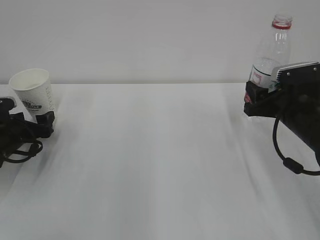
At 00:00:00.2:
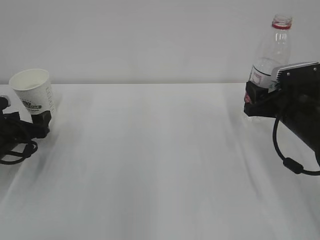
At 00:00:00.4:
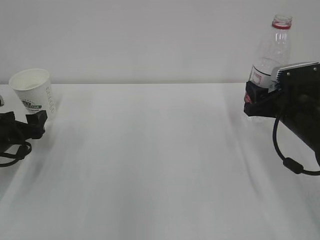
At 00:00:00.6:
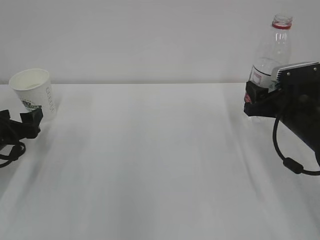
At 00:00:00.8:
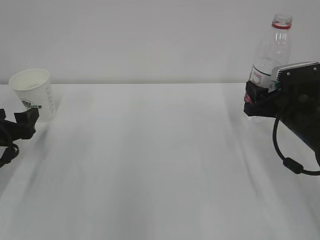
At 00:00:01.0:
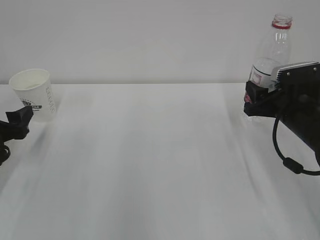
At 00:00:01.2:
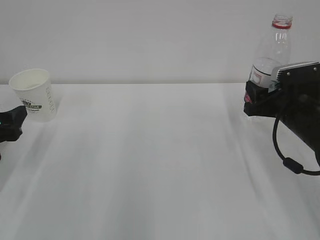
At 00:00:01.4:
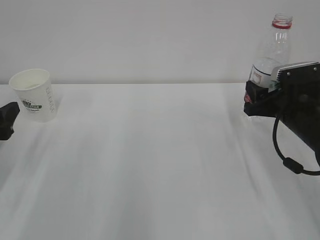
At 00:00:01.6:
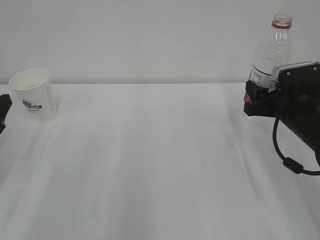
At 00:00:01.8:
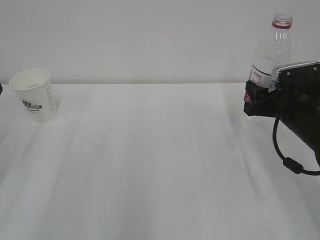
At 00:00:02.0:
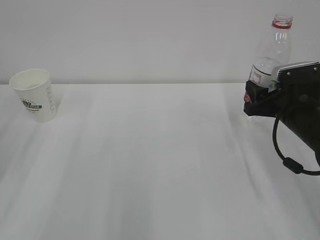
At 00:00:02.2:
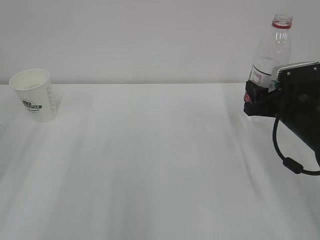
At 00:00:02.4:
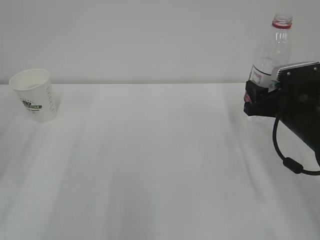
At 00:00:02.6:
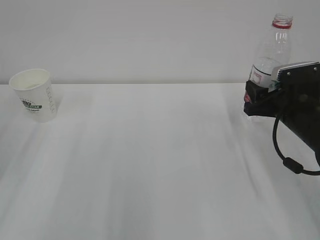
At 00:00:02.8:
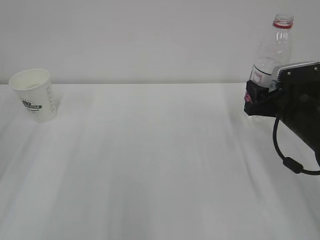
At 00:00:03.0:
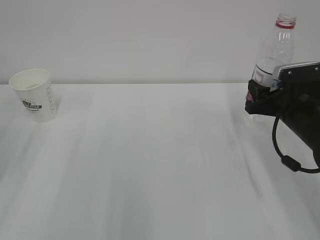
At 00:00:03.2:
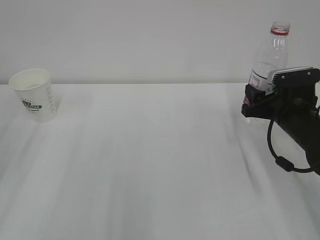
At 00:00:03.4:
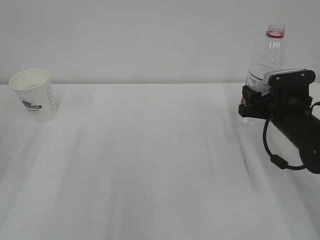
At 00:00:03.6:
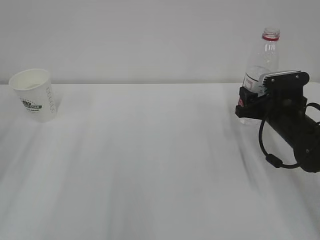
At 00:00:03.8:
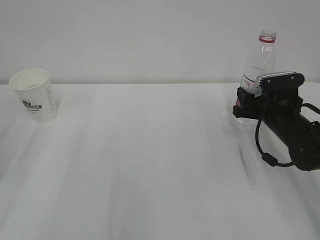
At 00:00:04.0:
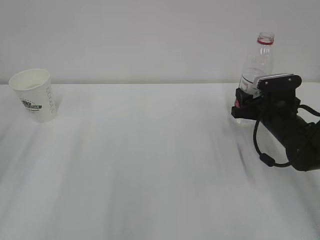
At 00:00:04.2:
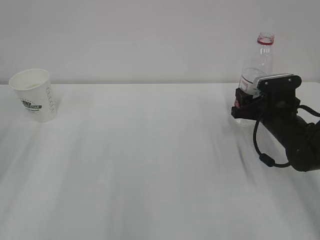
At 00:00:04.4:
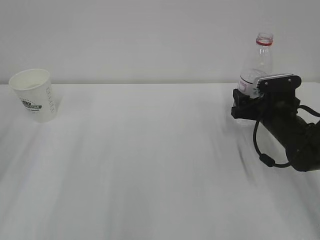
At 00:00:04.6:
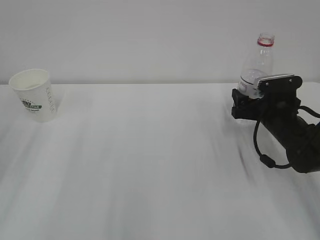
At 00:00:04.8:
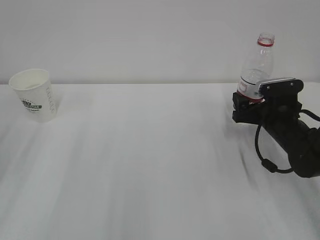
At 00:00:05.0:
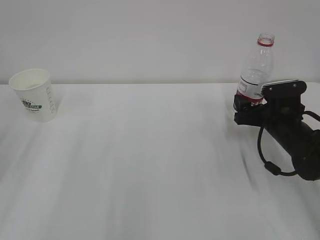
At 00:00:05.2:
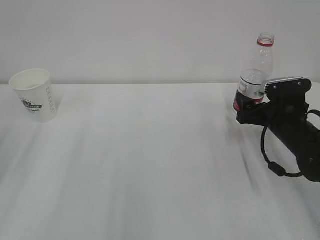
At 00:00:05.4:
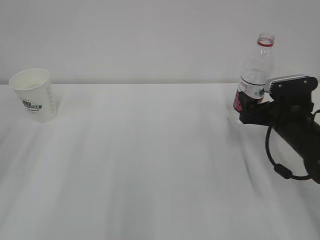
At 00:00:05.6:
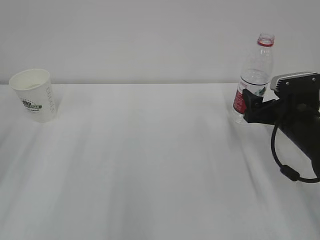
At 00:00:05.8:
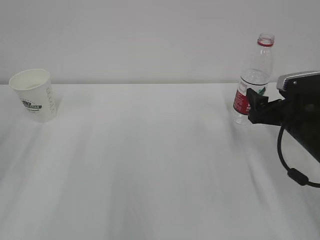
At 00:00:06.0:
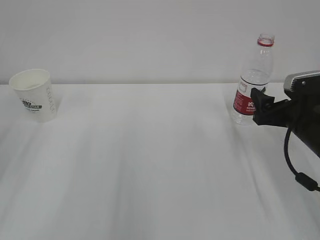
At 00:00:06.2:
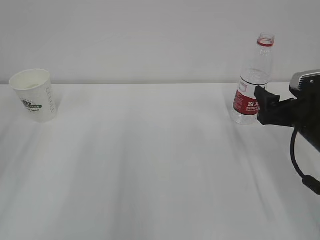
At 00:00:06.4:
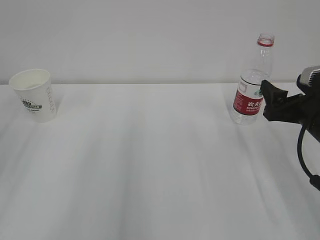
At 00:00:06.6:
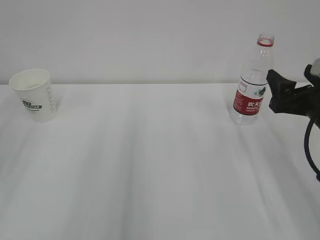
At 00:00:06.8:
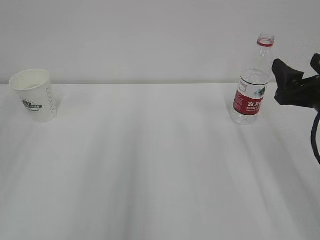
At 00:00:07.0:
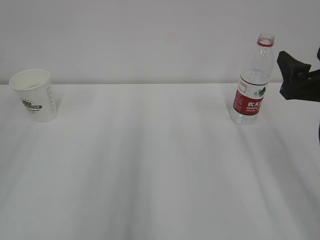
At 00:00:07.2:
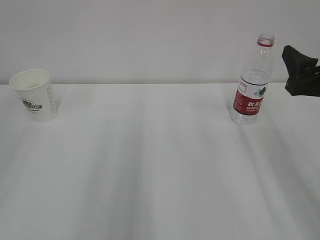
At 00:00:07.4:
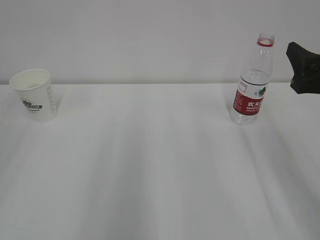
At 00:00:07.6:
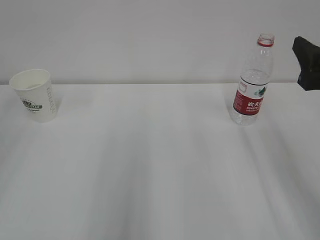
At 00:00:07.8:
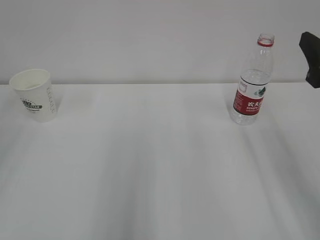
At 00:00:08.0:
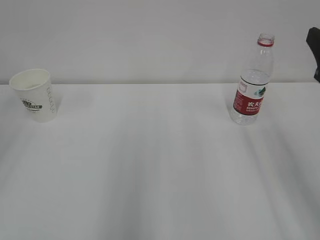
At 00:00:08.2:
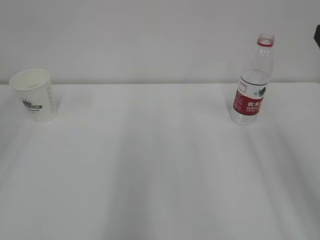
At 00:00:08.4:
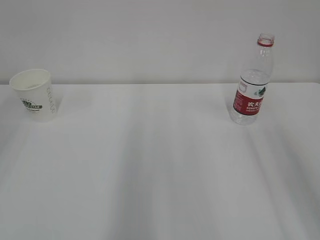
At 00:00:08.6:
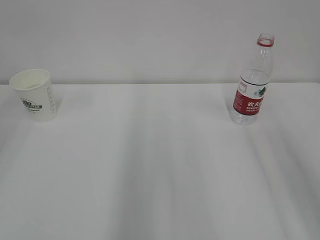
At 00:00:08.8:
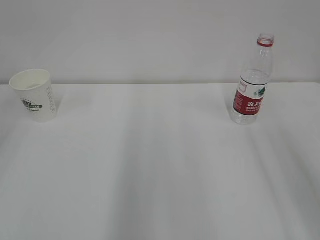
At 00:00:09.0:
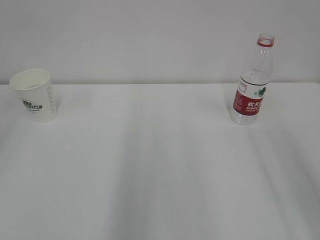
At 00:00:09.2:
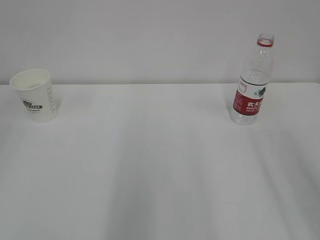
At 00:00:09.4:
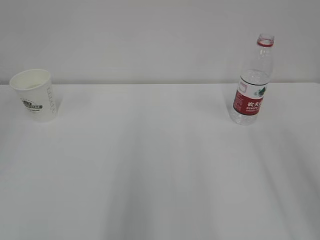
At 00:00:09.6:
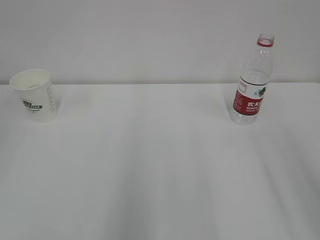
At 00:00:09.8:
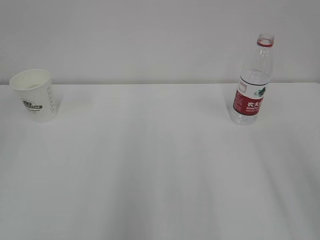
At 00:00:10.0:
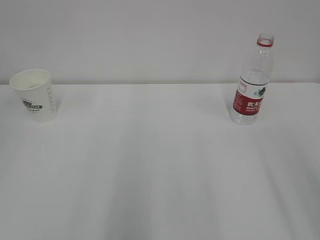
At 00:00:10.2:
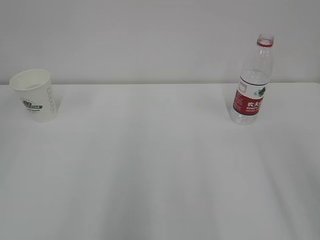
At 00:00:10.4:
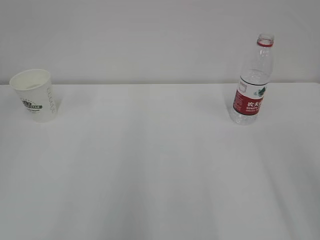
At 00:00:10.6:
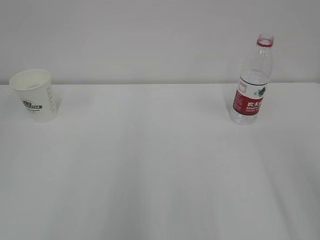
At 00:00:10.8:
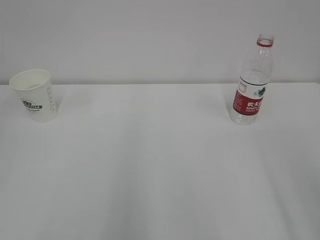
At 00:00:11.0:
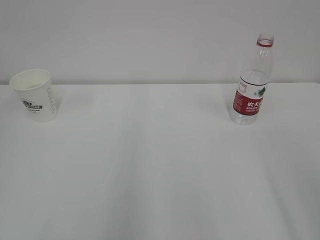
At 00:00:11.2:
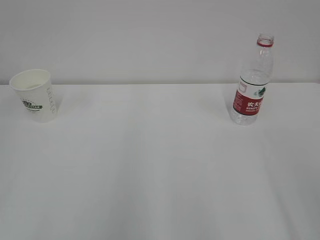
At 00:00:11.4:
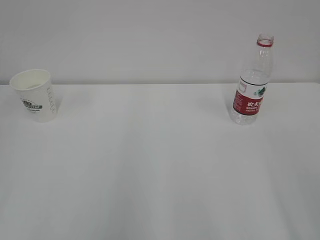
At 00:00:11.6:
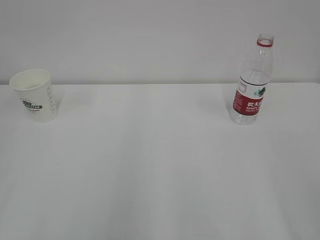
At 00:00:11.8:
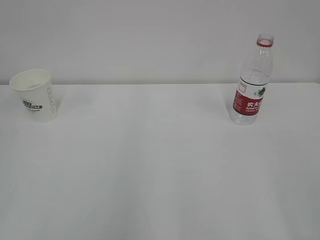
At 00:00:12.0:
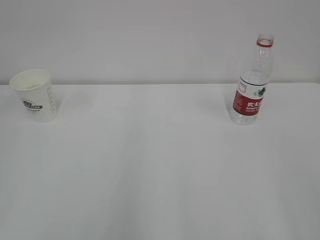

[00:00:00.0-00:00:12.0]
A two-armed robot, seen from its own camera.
00:00:00.0 to 00:00:01.6: The left gripper heads backward and upward, covering approximately 15 cm.
00:00:01.6 to 00:00:03.0: The grippers make only small movements.
00:00:03.0 to 00:00:04.4: The right gripper moves roughly 5 cm, and opens up.
00:00:04.4 to 00:00:06.0: The right gripper heads backward and upward, covering approximately 10 cm.
00:00:06.0 to 00:00:07.6: The right gripper goes some 15 cm upward and backward.
00:00:07.6 to 00:00:09.0: The right gripper goes about 10 cm backward and upward.

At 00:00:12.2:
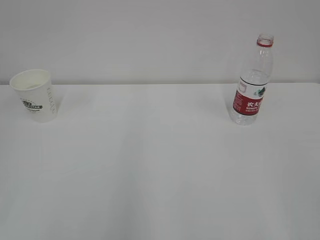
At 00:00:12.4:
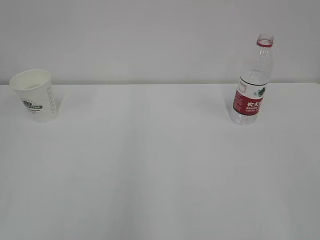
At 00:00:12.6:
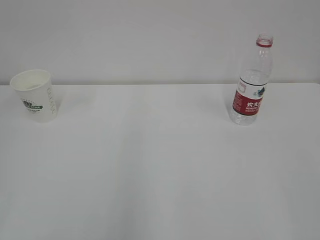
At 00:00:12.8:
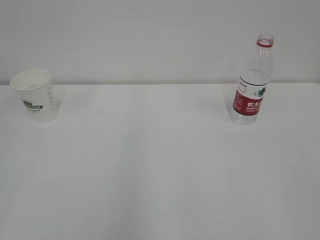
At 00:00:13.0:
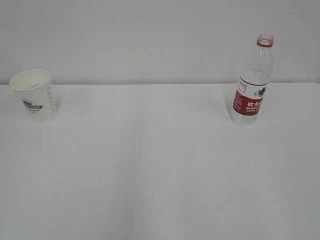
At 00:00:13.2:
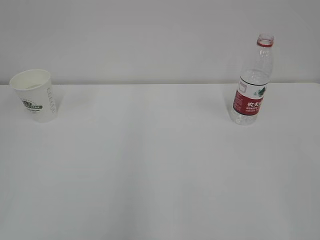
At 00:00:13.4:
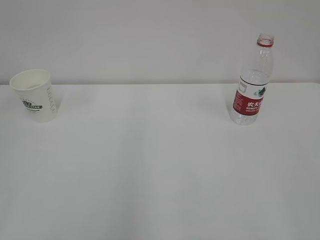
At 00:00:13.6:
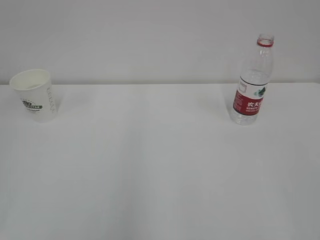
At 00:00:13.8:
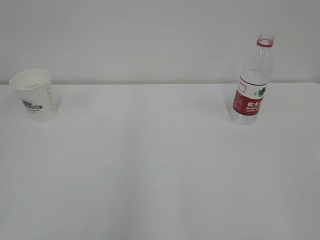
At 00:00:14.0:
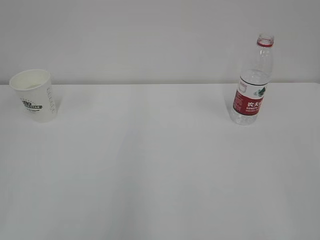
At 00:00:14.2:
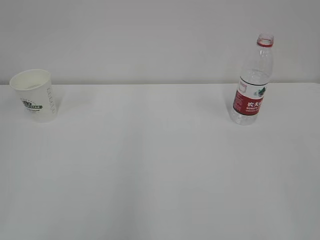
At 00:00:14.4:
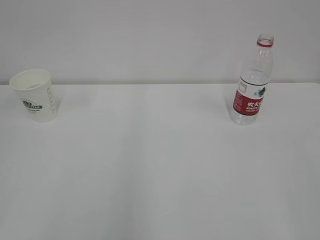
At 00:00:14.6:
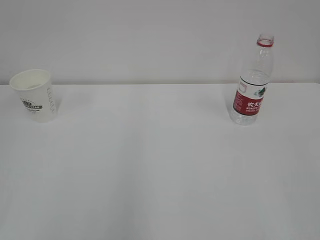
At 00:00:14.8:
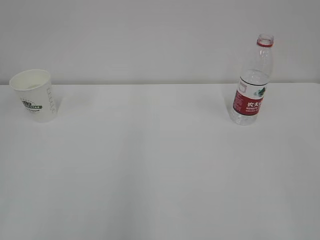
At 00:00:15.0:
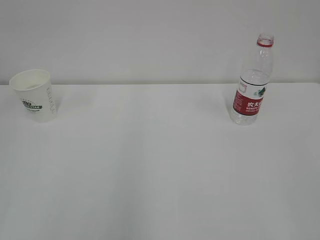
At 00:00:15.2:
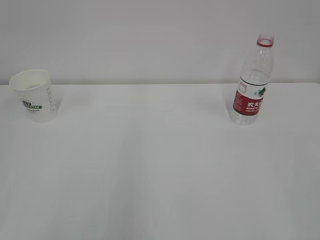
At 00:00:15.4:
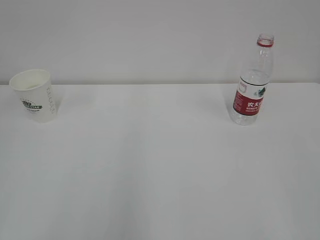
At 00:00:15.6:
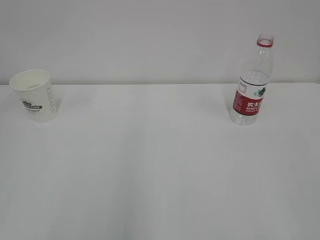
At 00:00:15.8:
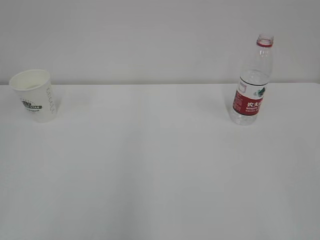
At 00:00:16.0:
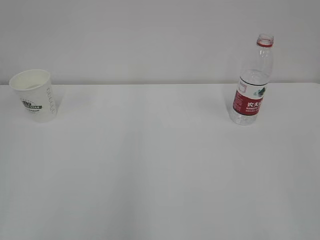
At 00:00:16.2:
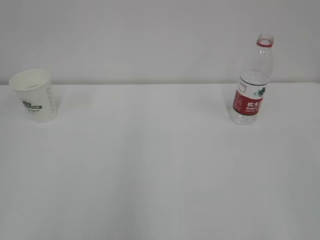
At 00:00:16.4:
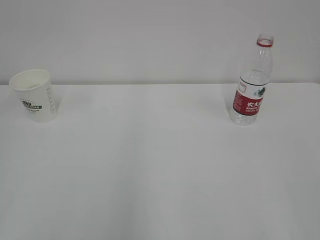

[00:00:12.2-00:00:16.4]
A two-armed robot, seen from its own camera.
00:00:13.6 to 00:00:16.4: Both grippers stay about where they are.
